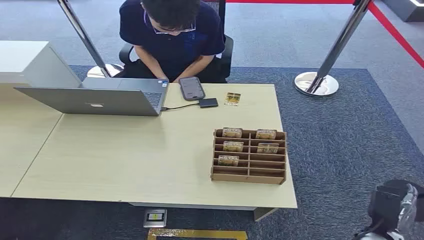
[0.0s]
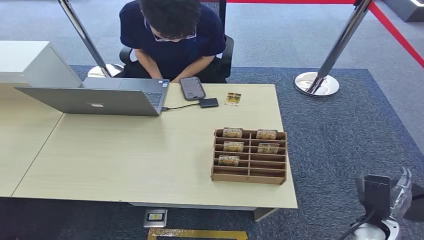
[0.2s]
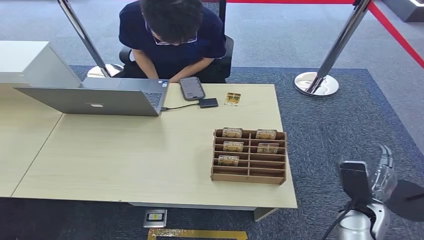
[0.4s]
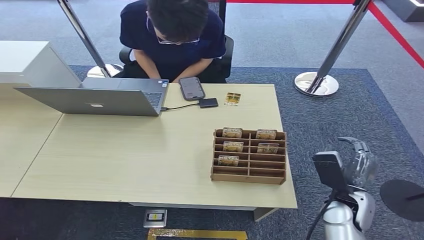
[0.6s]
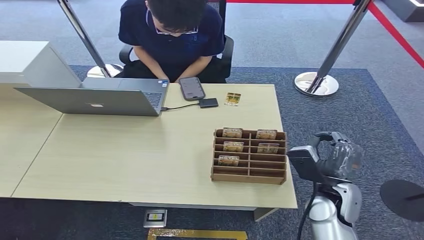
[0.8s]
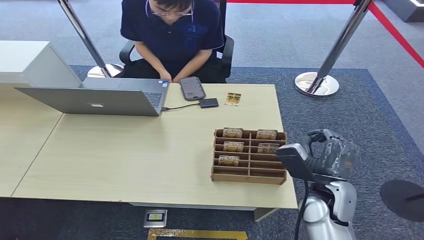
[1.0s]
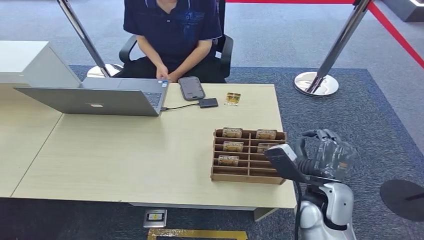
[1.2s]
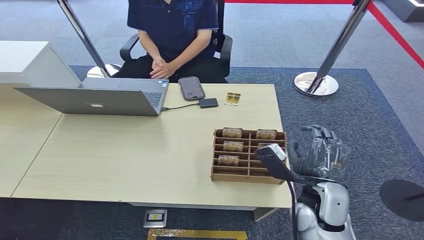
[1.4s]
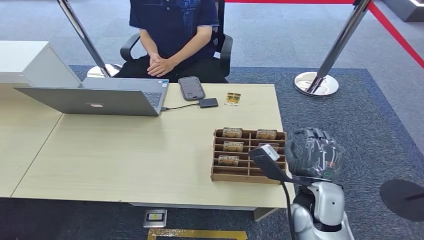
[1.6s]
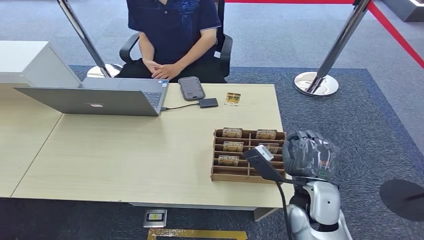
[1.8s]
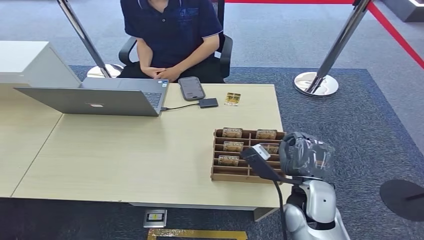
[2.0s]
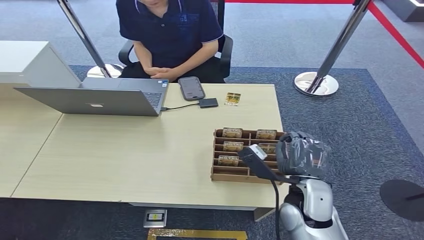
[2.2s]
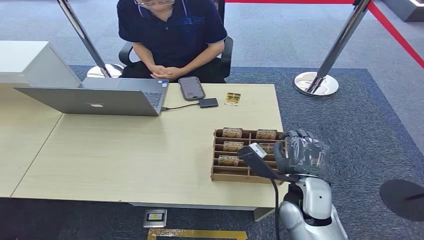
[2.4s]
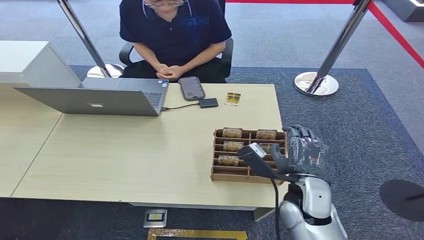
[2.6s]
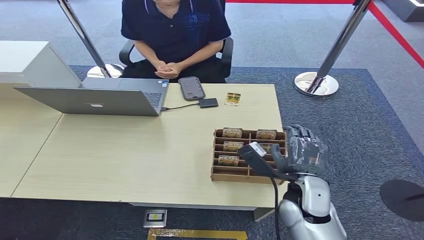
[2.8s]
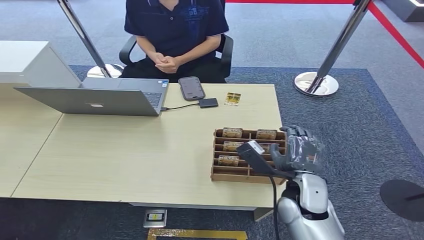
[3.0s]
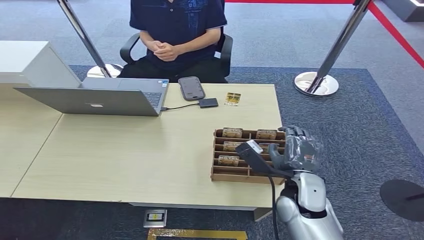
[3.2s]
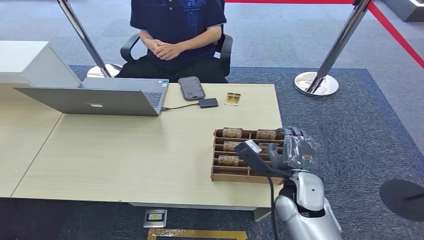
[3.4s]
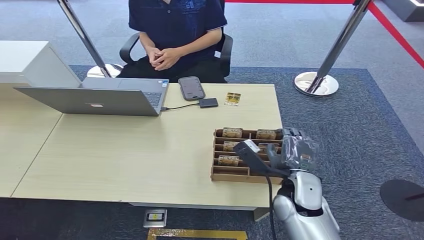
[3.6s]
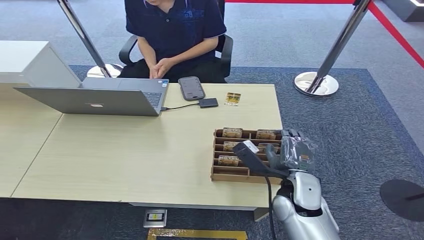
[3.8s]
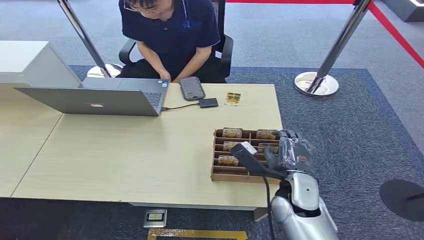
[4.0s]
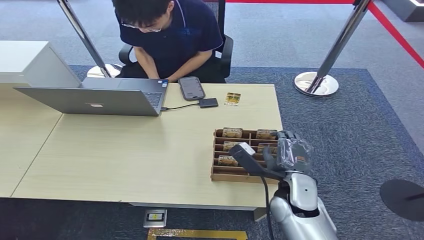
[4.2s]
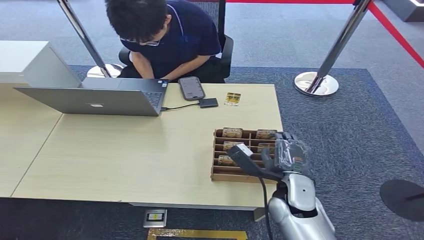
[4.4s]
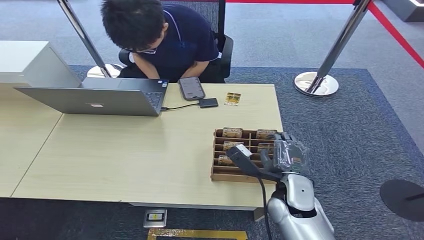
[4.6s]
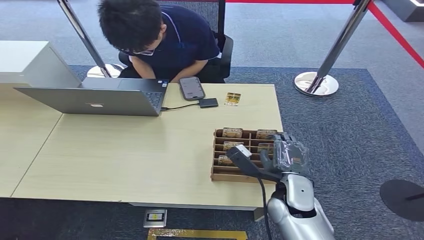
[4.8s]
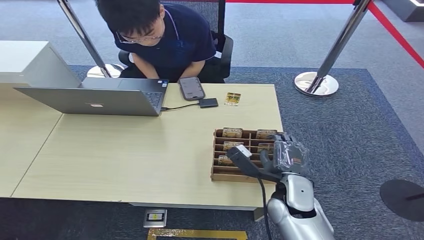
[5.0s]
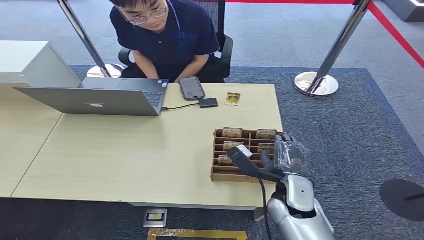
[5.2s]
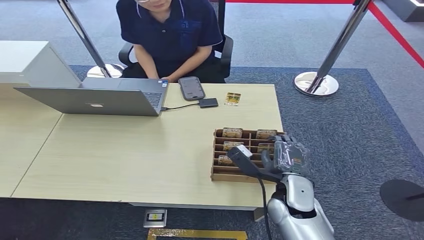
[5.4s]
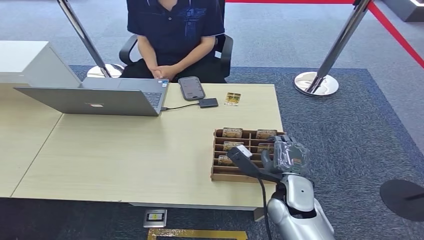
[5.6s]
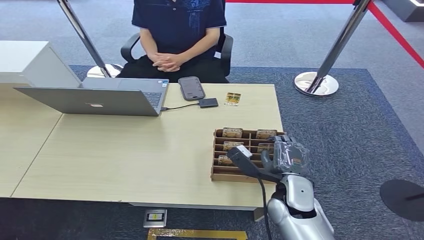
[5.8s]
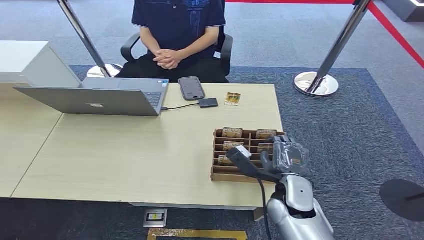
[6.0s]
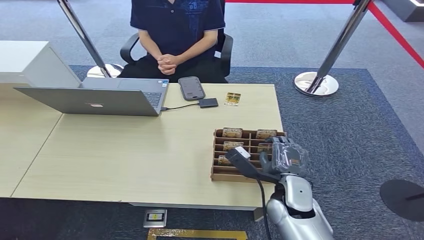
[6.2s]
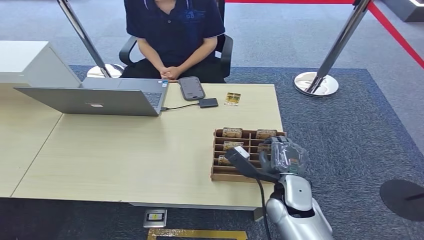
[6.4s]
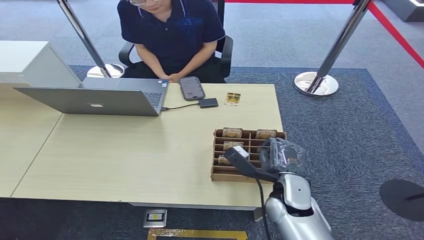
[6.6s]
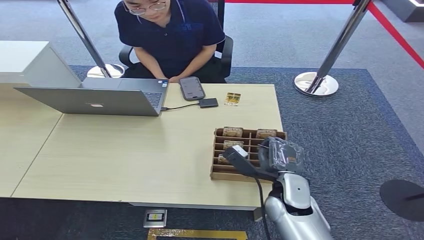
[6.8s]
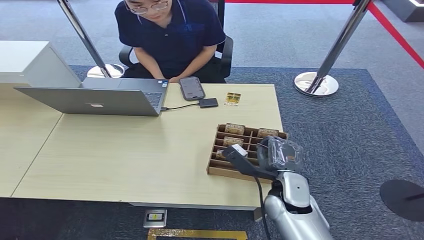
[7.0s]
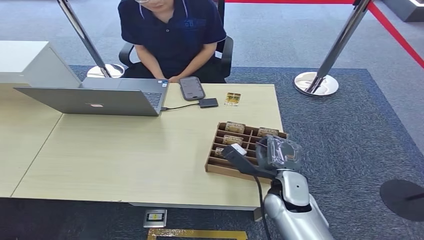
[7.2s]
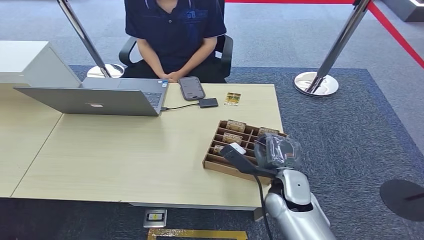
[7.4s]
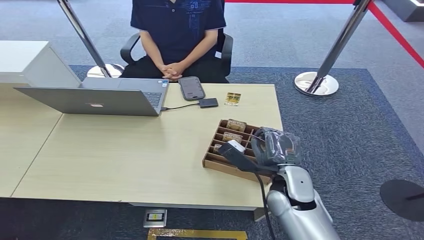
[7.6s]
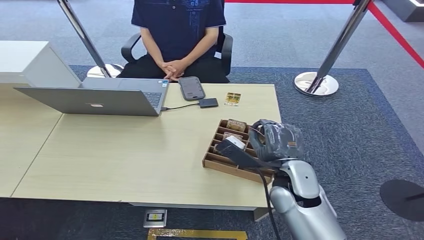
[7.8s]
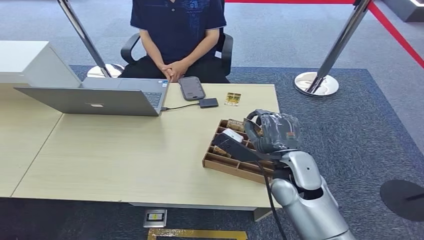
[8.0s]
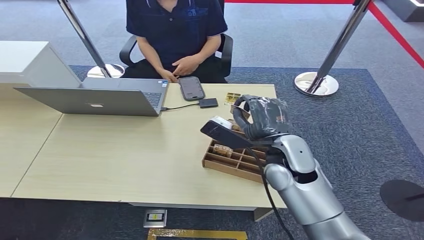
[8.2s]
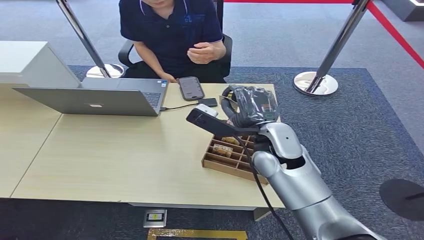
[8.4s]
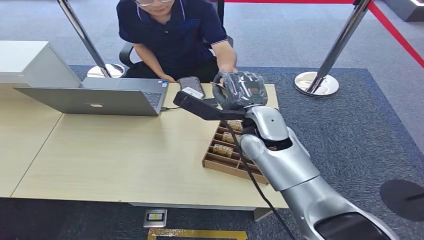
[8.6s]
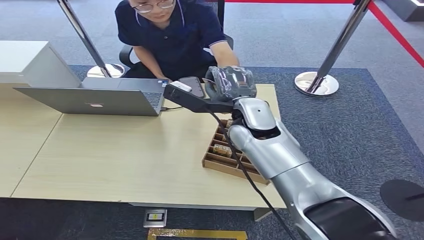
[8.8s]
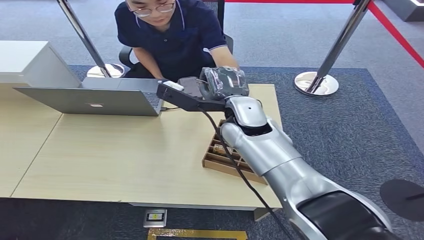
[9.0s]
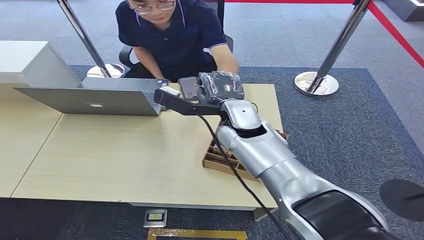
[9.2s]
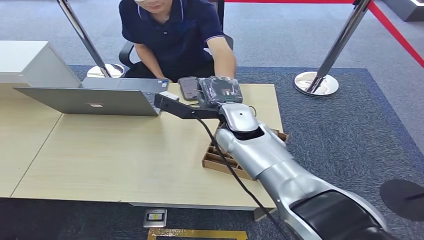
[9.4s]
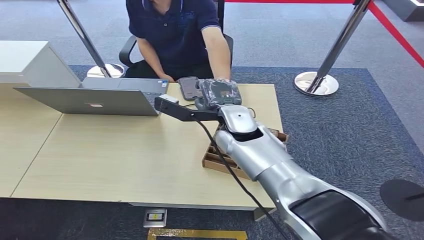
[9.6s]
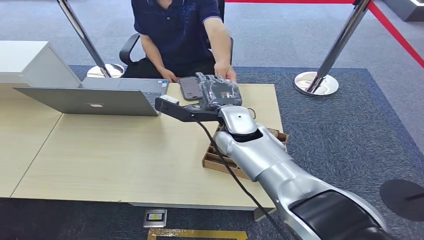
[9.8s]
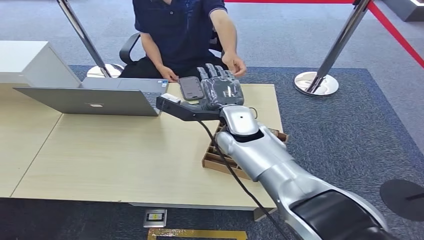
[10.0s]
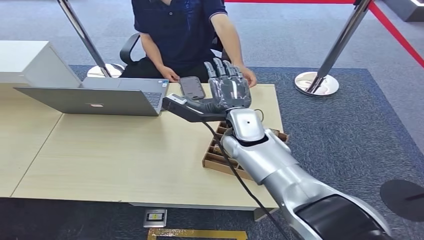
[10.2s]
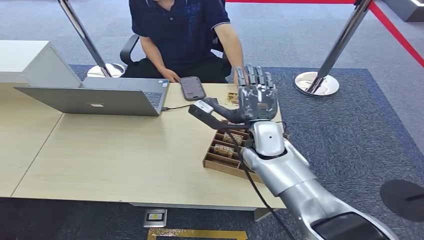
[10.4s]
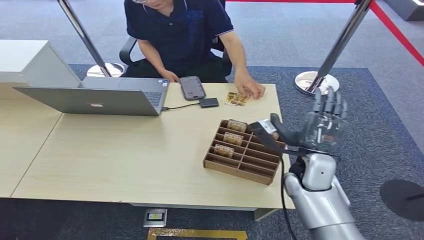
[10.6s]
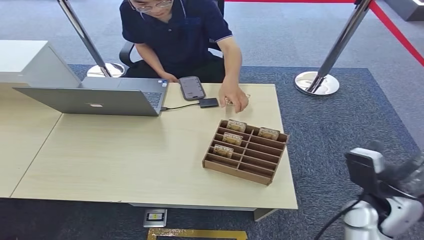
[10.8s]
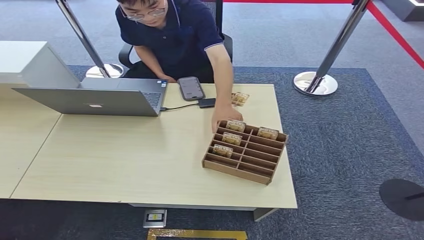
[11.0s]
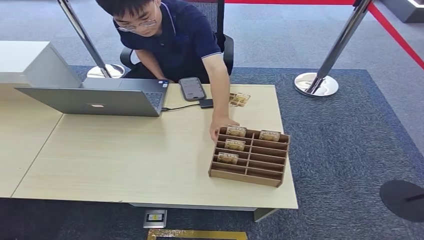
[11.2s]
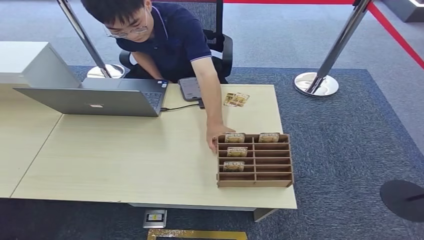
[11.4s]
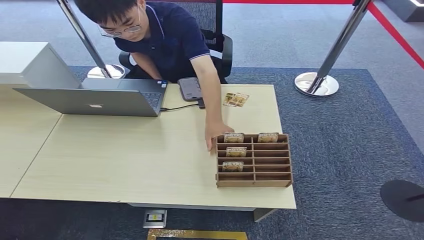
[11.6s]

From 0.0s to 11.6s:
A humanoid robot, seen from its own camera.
Step, from 0.0s to 8.4s: Pick up the key card from the card box.
Step, from 8.6s to 11.6s: Hand the key card to the target.
From 1.4s to 4.4s: There are only small adjustments of the hands.
From 4.4s to 7.2s: Both hands stay put.
From 7.2s to 8.8s: The right hand is displaced upward, forward and to the left by roughly 20 cm.
From 8.8s to 10.2s: The hands stay close to where they were, moving slightly.
